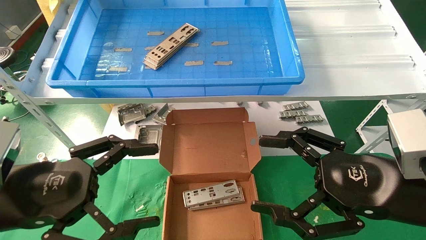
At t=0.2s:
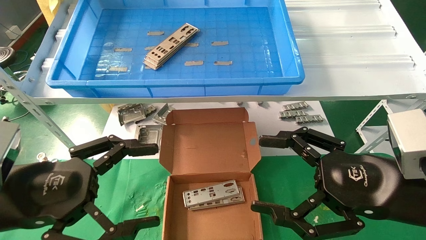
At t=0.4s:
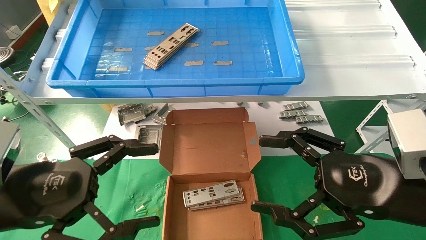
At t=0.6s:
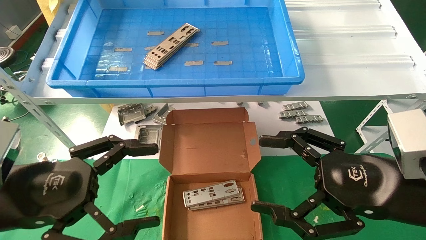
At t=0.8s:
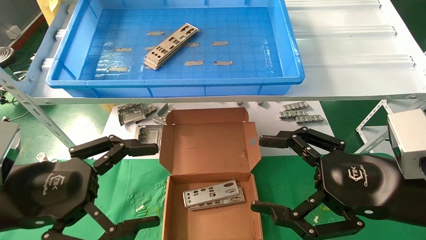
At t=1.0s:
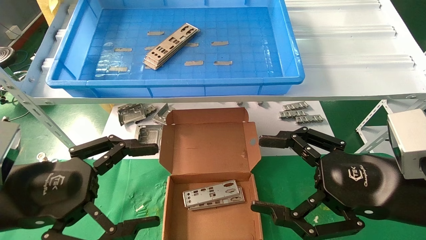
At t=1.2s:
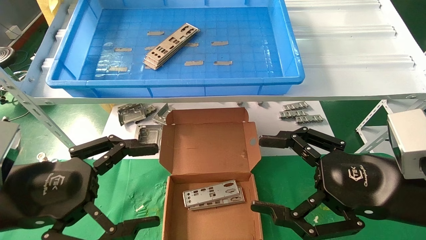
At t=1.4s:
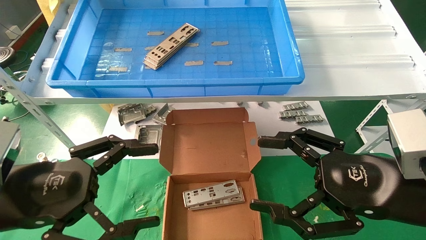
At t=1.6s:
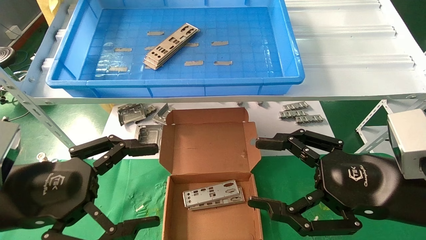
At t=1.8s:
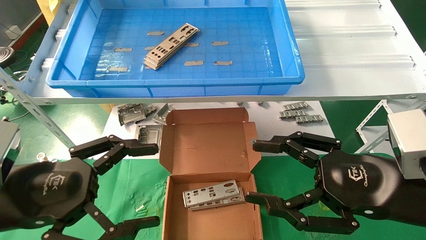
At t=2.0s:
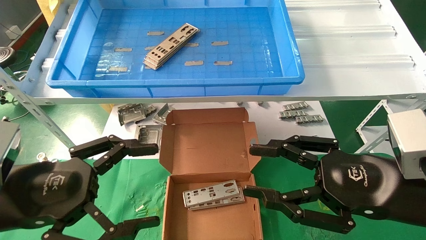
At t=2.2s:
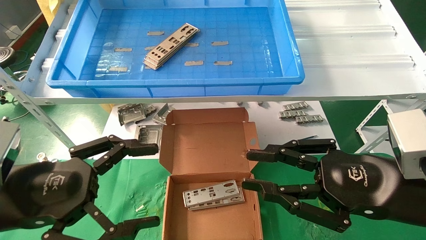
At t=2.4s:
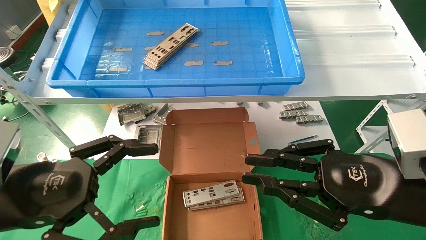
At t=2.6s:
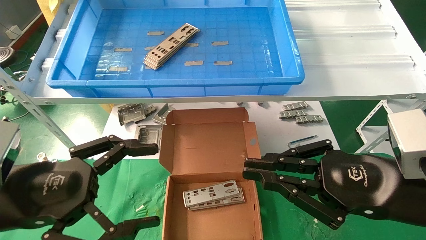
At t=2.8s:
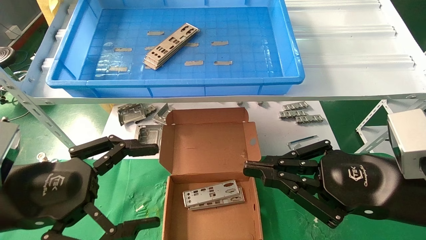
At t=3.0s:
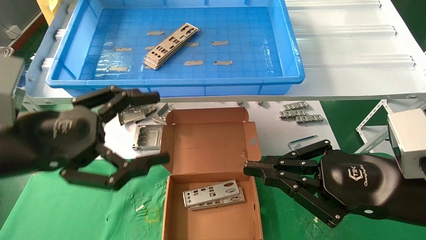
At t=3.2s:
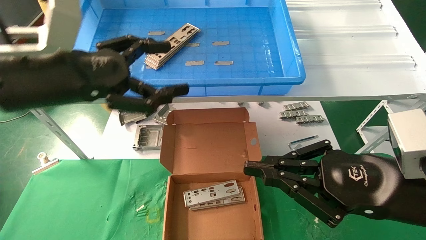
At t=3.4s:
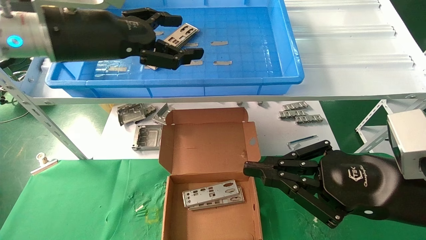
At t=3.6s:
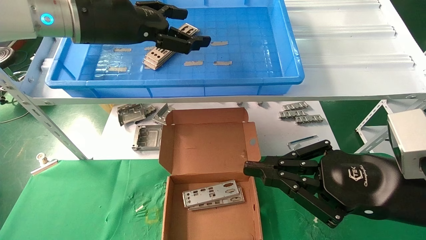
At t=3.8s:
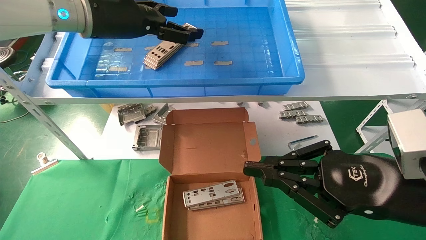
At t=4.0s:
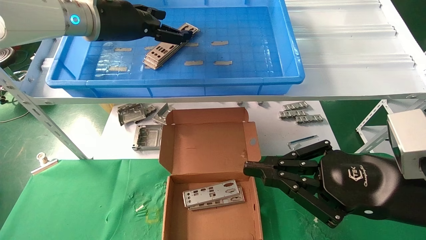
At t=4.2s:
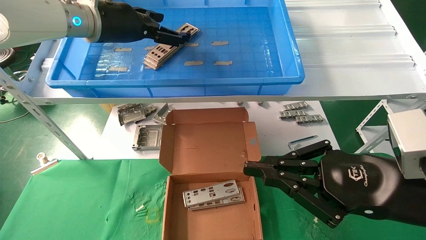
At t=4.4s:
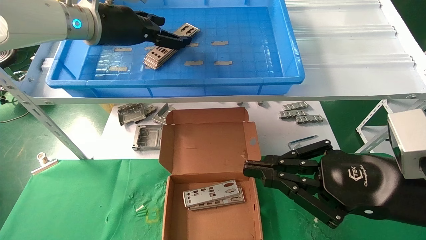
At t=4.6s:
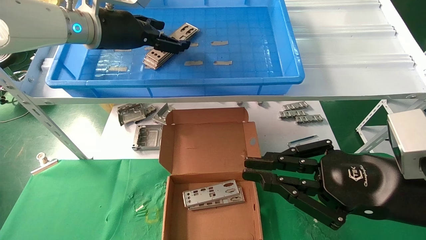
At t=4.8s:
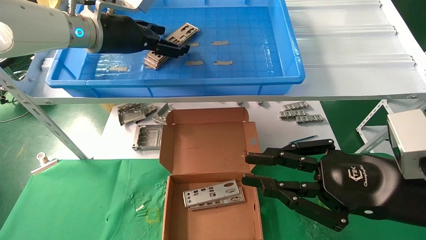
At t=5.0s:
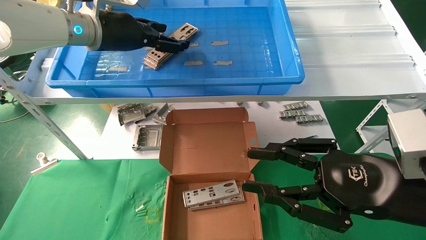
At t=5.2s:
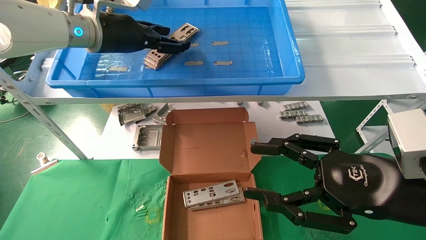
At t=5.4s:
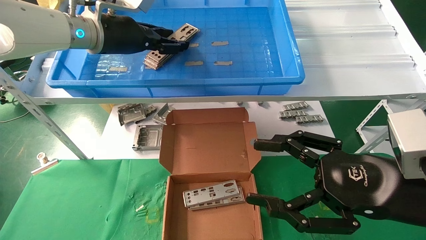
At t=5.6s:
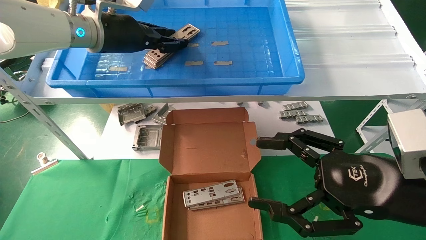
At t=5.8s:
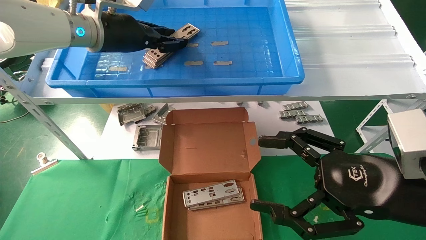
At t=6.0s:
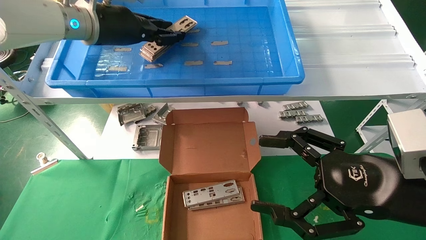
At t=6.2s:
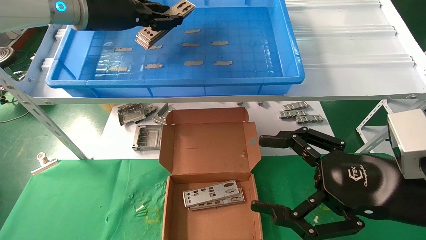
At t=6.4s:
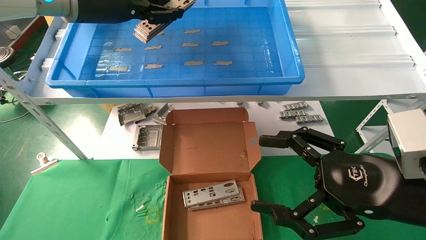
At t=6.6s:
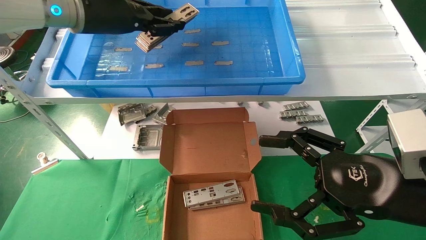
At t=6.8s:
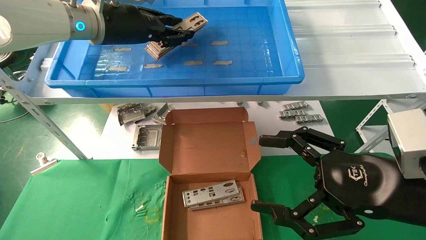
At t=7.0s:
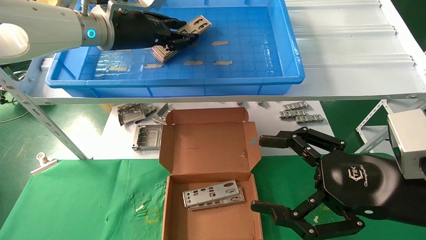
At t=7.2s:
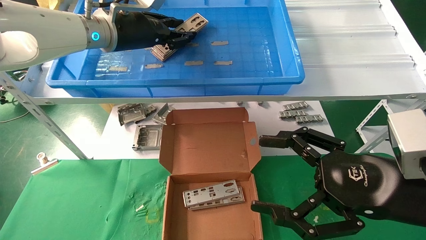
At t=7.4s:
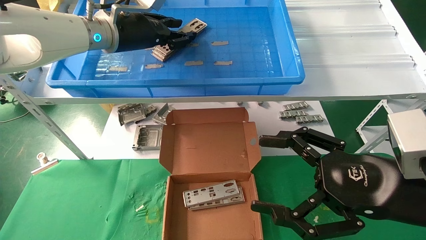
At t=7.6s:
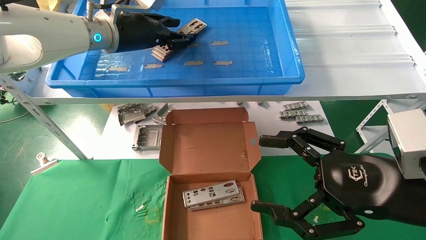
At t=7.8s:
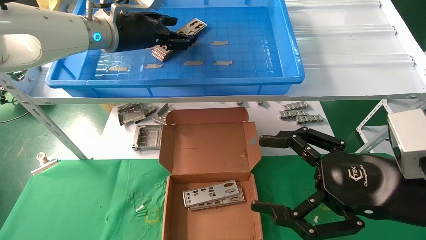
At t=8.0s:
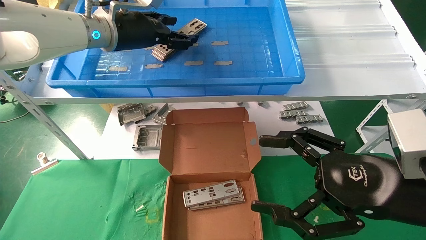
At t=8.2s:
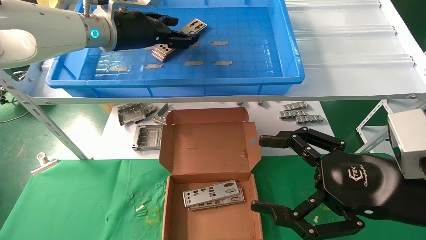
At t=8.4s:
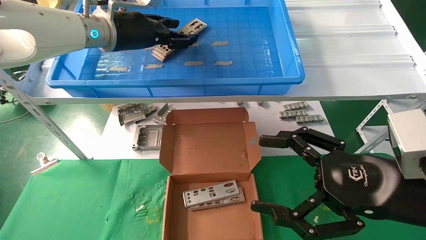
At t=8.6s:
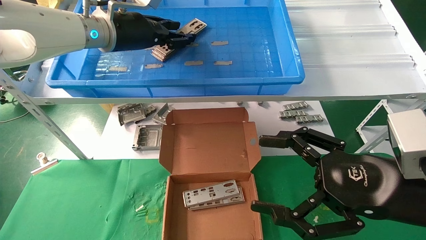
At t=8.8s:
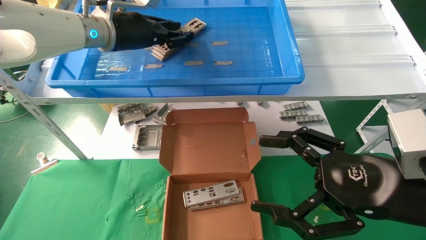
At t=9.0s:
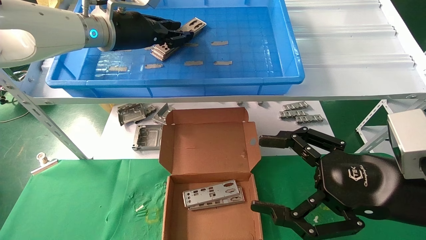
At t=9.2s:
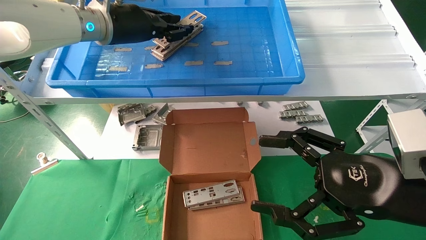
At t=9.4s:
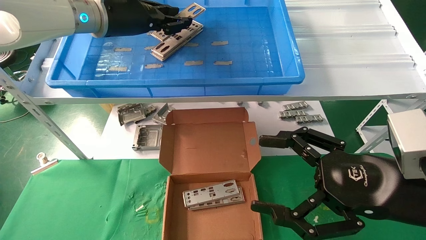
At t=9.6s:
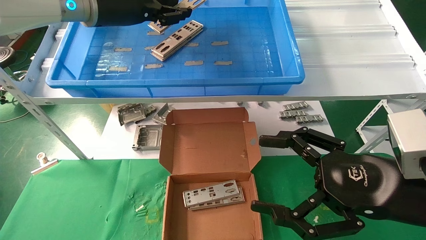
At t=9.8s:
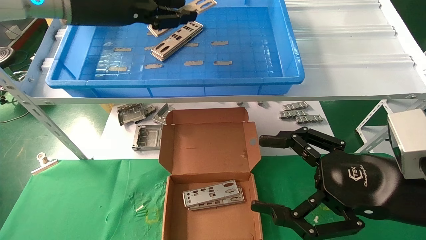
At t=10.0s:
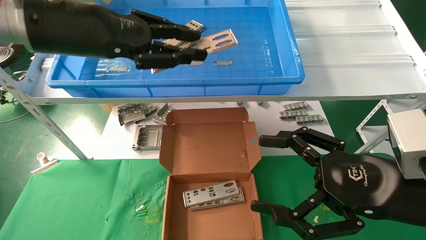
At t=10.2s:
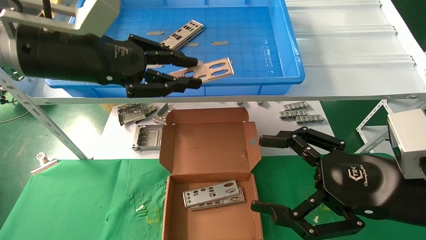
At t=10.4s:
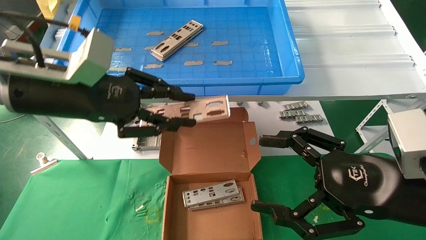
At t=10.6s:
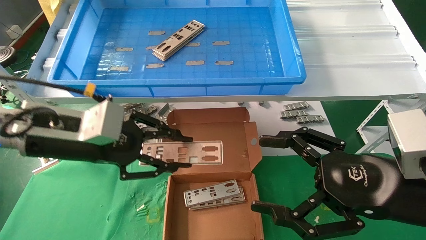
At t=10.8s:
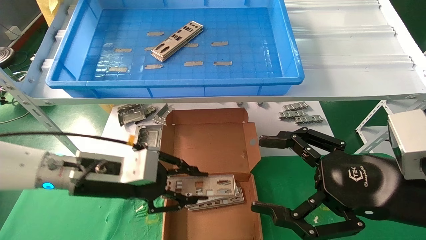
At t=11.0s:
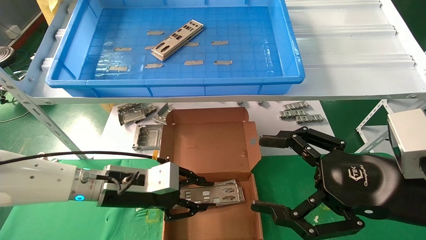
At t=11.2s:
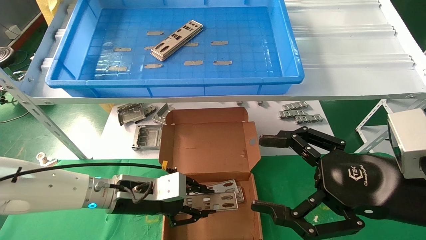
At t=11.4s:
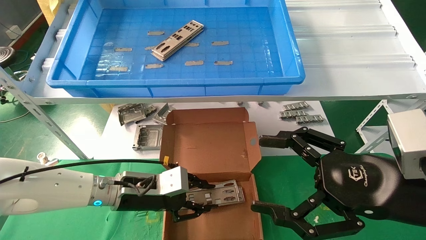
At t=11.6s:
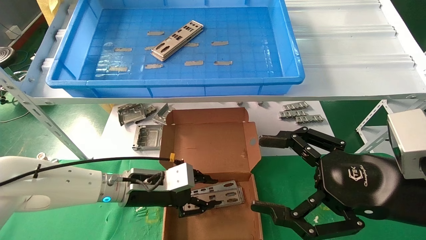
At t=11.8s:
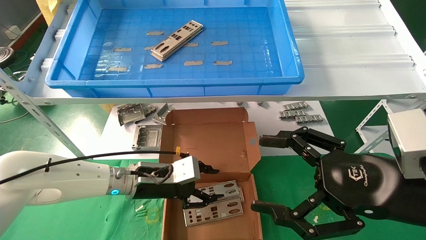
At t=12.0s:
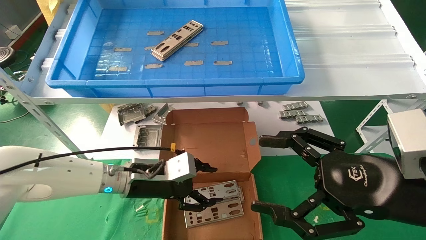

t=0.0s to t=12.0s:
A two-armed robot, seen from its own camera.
Task of the whole recording: pick up the parts on the tray and put them in the cardboard box.
Step, t=3.2s to t=9.0s: Pick up the IO bracket from the container box.
Step, t=9.2s to t=11.8s: Place the IO bracket into the ingredient slot.
t=0.0s to t=1.6s: Neither gripper changes place.
t=1.6s to t=3.0s: The left gripper moves upward, about 5 cm. The right gripper closes.
t=3.0s to t=4.4s: The left gripper travels forward and upward by about 25 cm.
t=4.4s to t=6.0s: The left gripper closes its fingers; the right gripper opens.
t=6.0s to t=7.6s: The grippers move only a little.
t=7.6s to t=9.0s: The left gripper opens, then closes once more.
t=9.0s to t=10.4s: The left gripper moves backward, downward and to the left, roughly 15 cm.
t=10.4s to t=12.0s: The left gripper goes approximately 20 cm downward, and opens.

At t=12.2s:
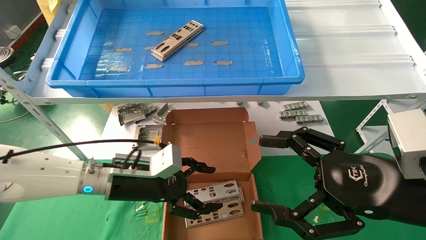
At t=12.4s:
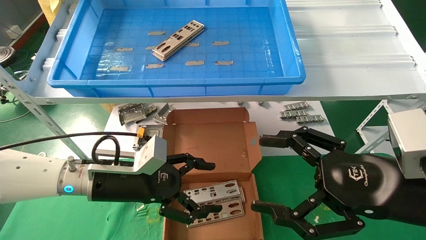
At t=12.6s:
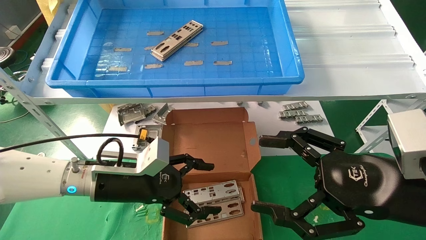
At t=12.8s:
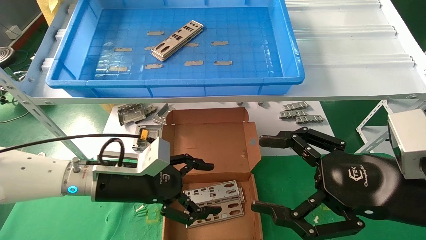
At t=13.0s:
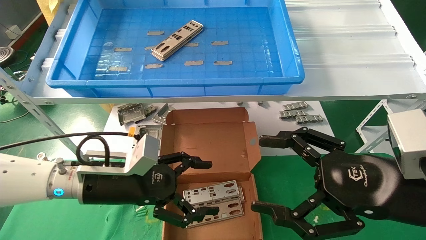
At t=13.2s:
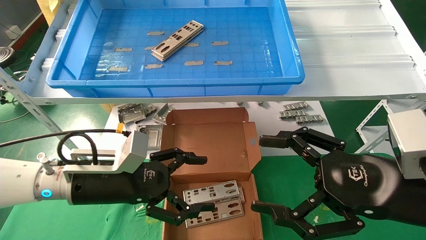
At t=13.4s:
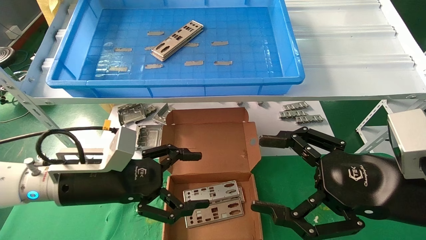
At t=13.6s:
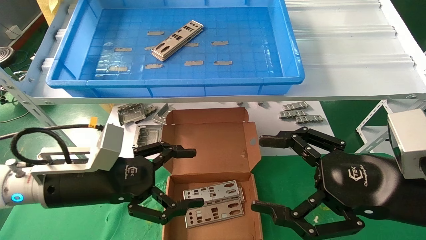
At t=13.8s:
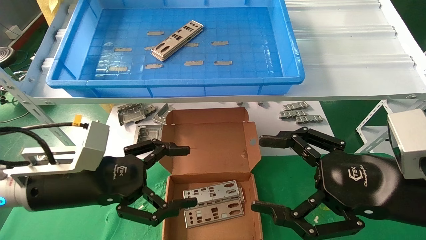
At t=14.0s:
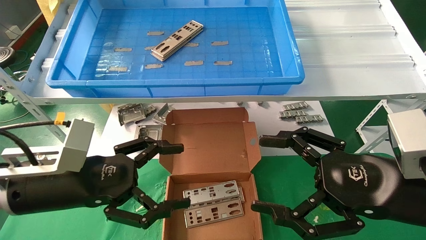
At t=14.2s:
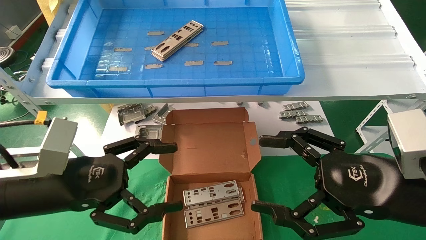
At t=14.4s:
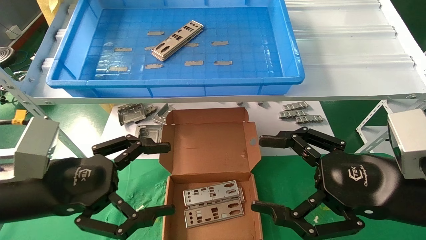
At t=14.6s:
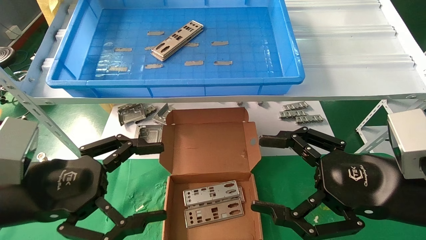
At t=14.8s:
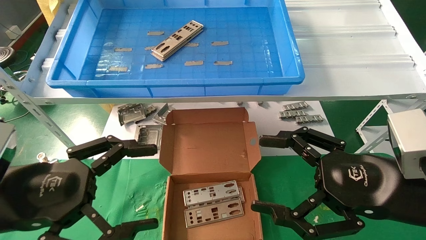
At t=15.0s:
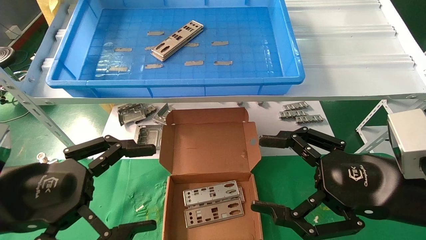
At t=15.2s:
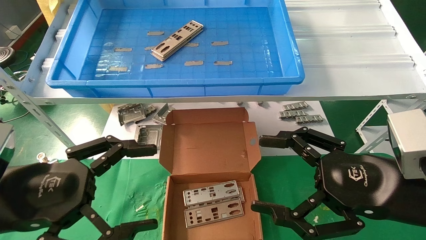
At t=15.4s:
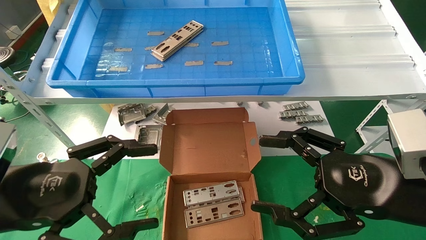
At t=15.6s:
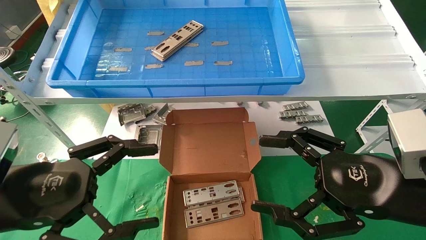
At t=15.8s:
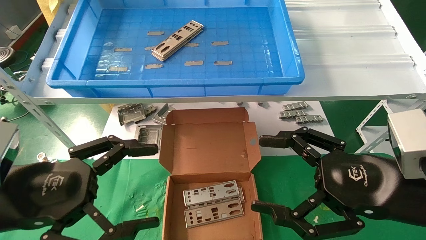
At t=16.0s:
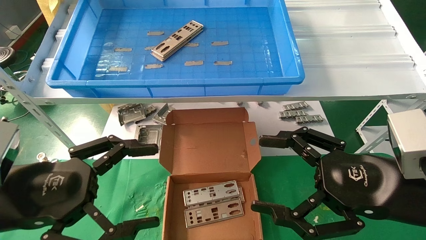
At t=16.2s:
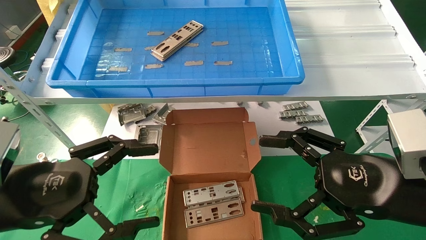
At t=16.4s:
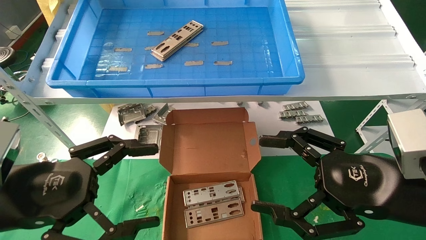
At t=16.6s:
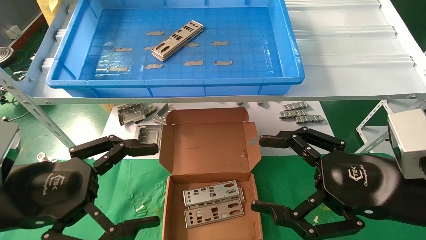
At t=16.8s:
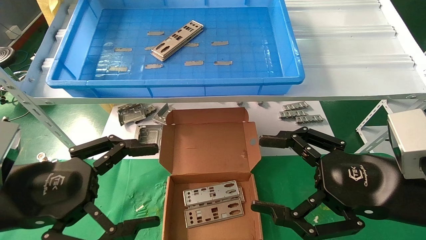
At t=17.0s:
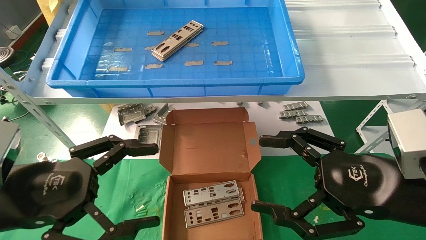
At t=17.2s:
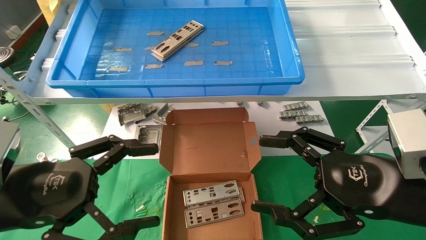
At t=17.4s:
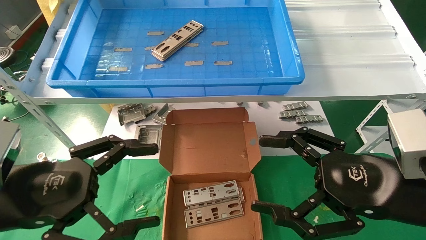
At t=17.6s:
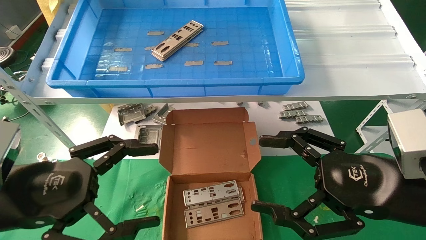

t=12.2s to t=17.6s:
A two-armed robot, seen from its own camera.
Task of the whole recording: pick up the parts on the tray and put them in the cardboard box.
t=12.2s to t=13.6s: The left gripper heads backward and to the left, covering roughly 10 cm, and opens its fingers.
t=13.6s to t=15.0s: The left gripper shifts approximately 10 cm backward and to the left.
t=15.0s to t=17.6s: Neither gripper changes place.
